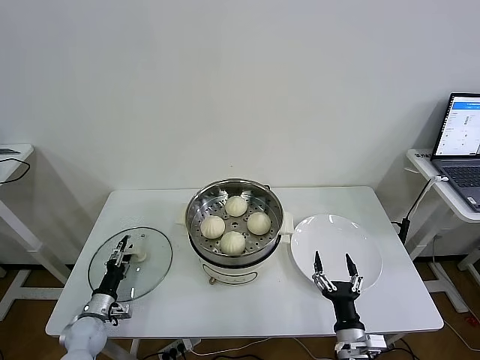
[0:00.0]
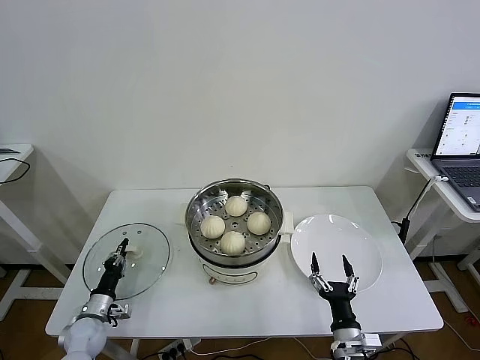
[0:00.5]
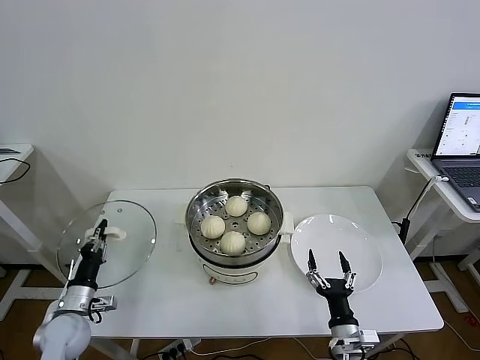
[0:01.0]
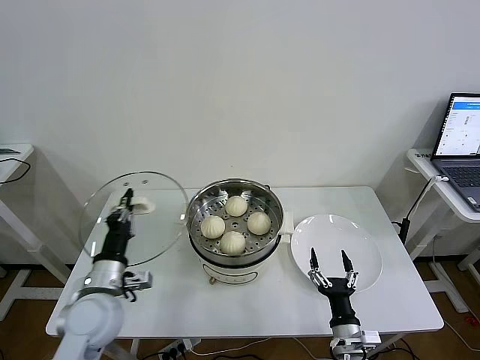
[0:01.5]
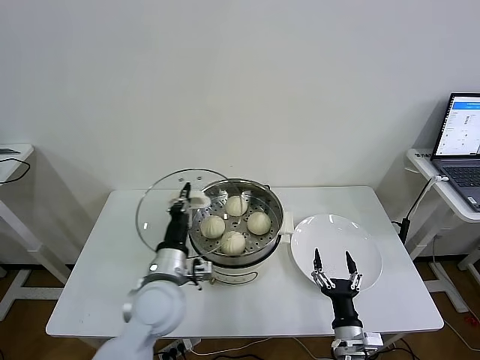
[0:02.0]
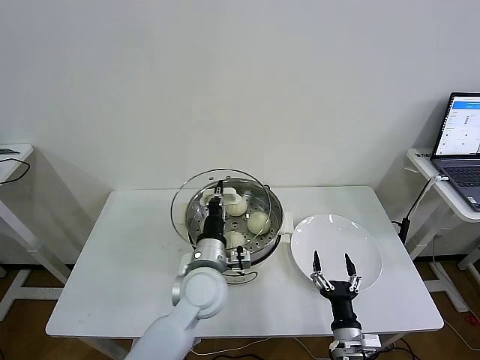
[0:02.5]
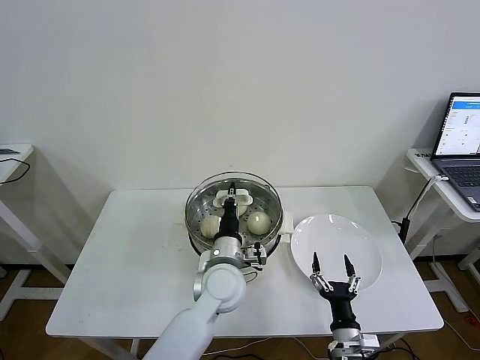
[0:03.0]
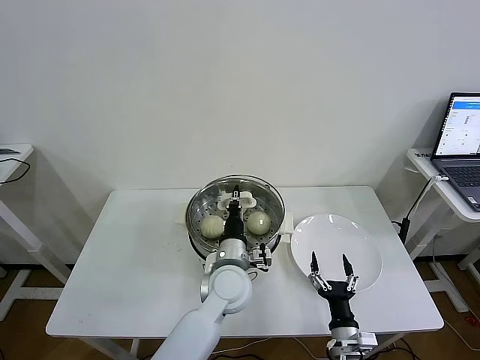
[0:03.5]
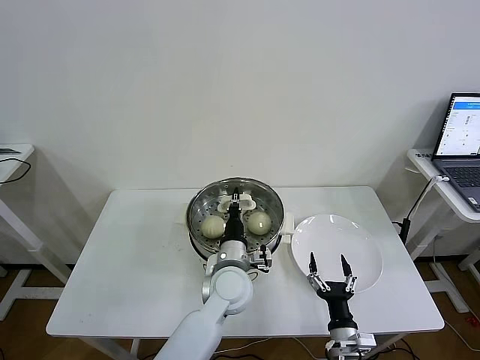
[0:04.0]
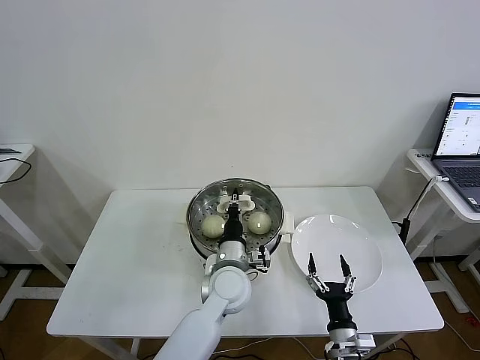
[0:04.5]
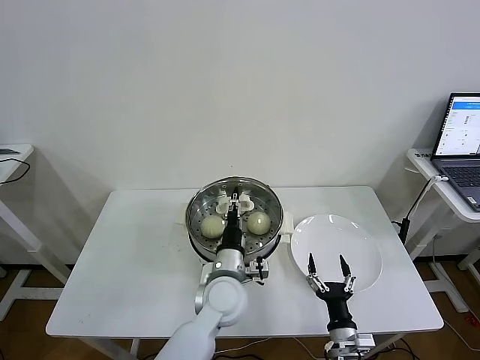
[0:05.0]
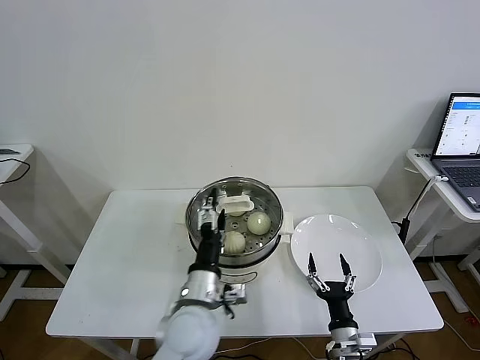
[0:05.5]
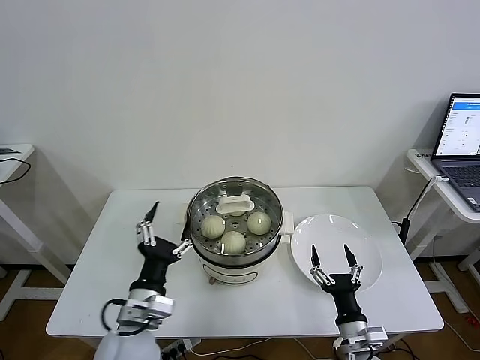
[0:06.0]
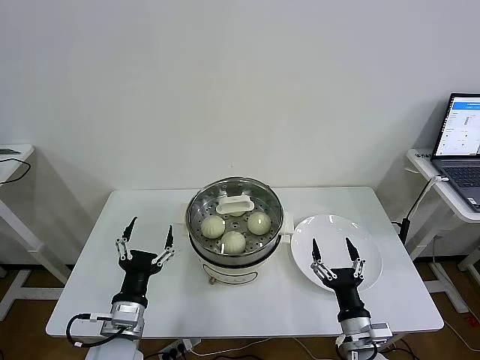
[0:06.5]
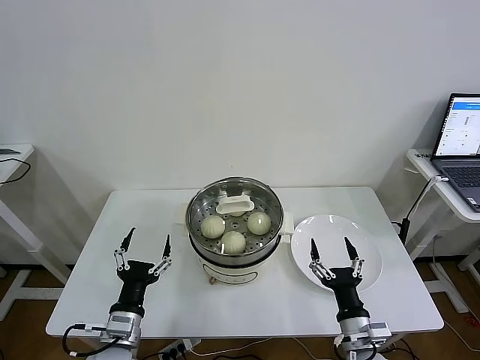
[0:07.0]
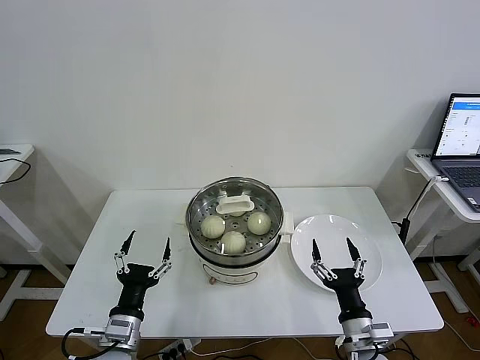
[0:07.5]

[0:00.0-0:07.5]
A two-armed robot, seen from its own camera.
Task of the whole recording: take steamed baozi put them in steamer then cover it.
Step, 0:01.0 to 0:05.5: Place the pot lid on the steamer with left gripper.
0:00.0 to 0:02.0: The left gripper shifts about 35 cm upward and to the right, and closes.
0:02.0 to 0:04.0: The left gripper goes approximately 15 cm to the right.
0:04.0 to 0:05.5: The left gripper is displaced backward and to the left by some 10 cm, and opens its fingers.
0:05.5 to 0:07.5: The right gripper shifts some 10 cm upward. The left gripper heads to the left and backward, covering approximately 20 cm.
